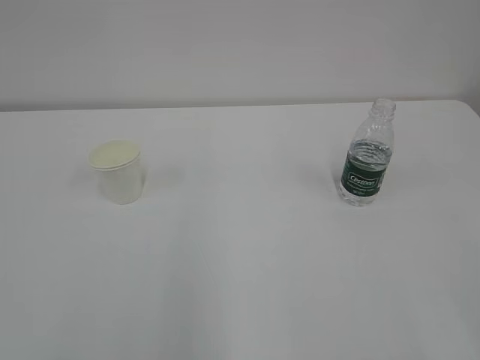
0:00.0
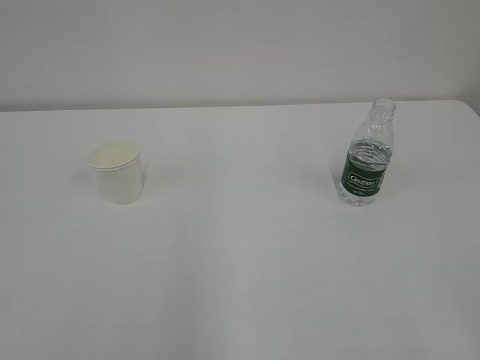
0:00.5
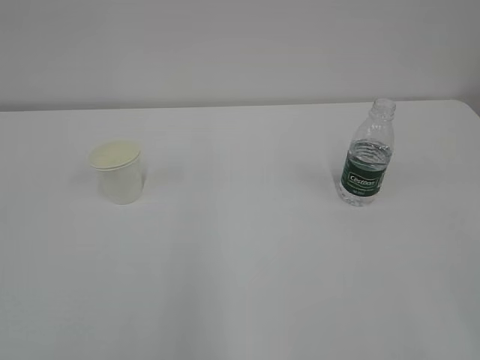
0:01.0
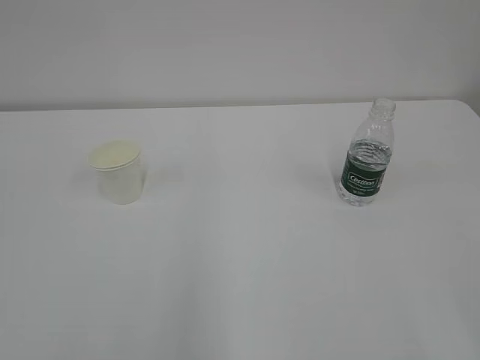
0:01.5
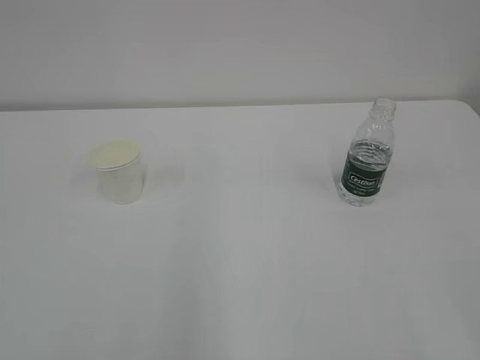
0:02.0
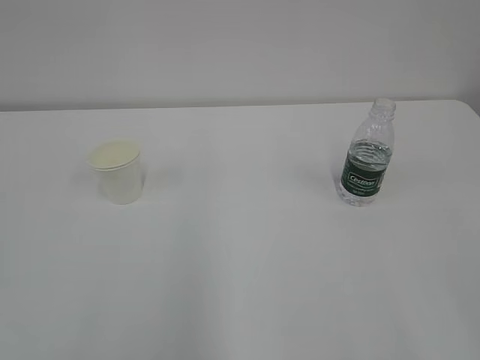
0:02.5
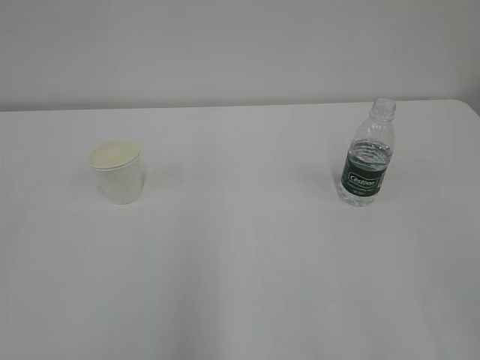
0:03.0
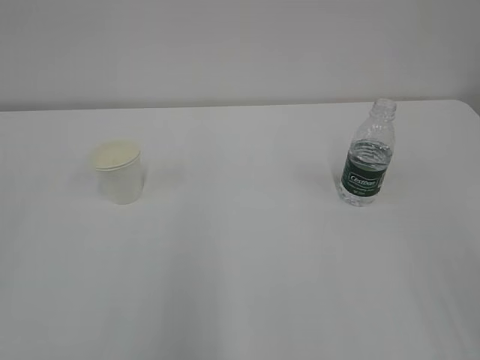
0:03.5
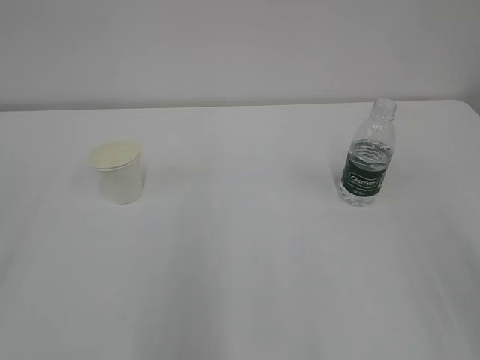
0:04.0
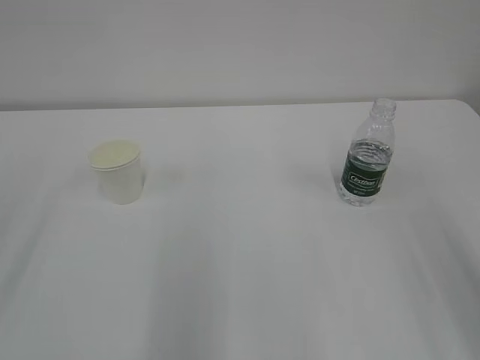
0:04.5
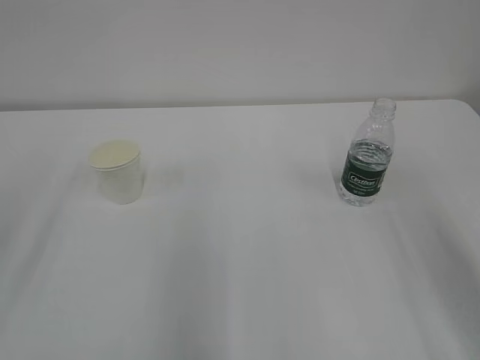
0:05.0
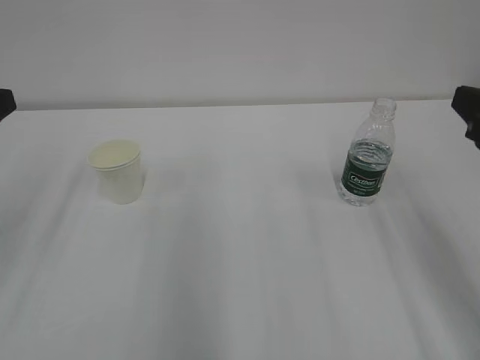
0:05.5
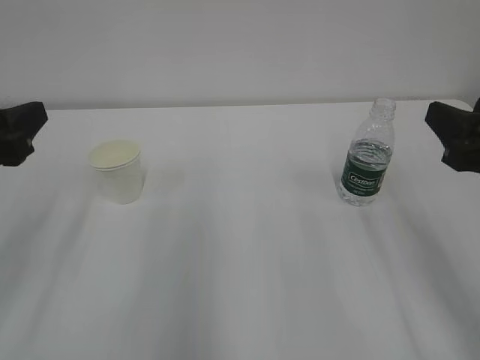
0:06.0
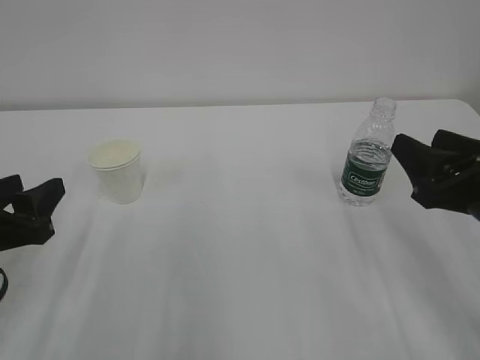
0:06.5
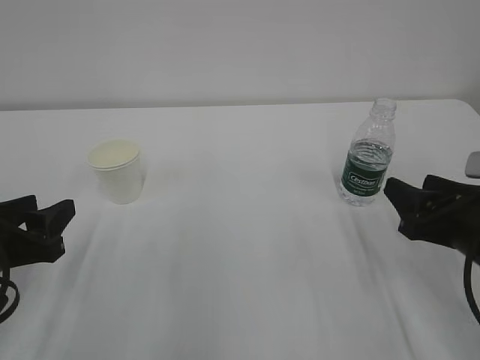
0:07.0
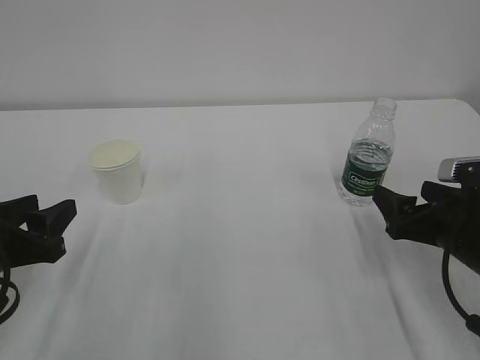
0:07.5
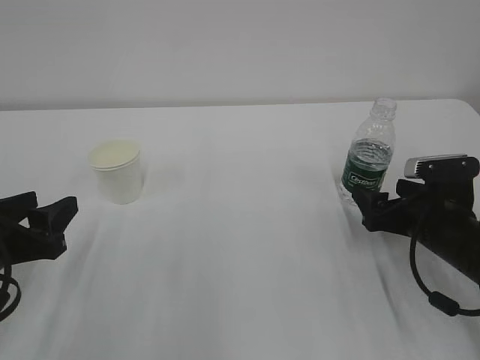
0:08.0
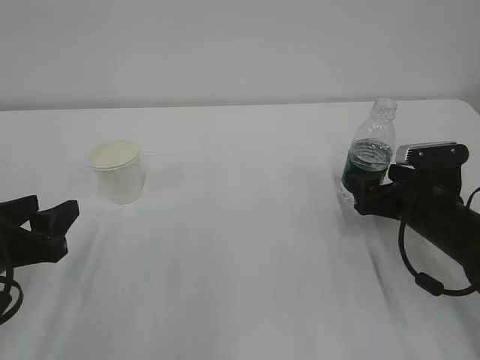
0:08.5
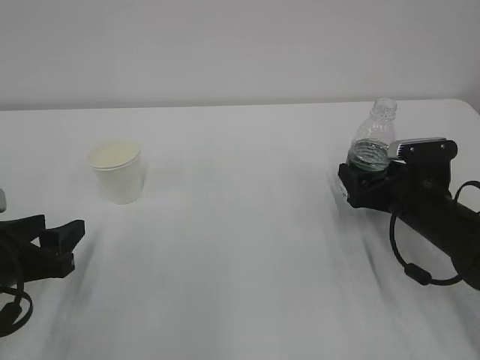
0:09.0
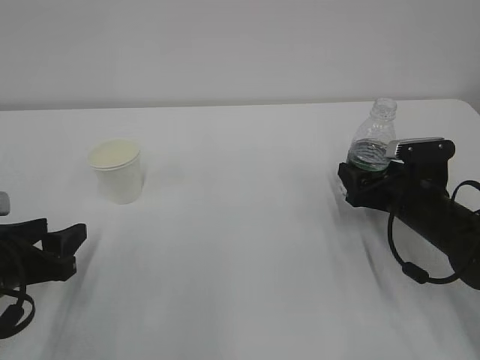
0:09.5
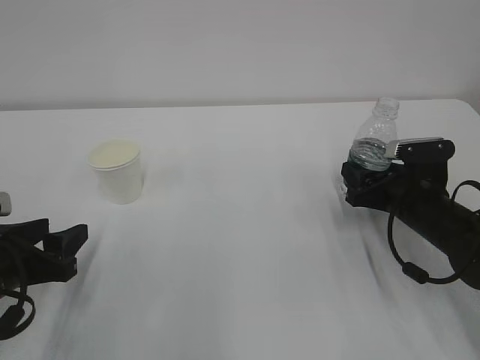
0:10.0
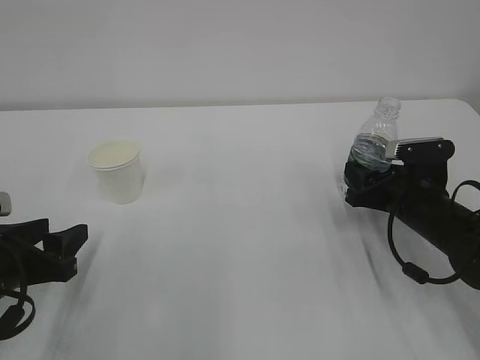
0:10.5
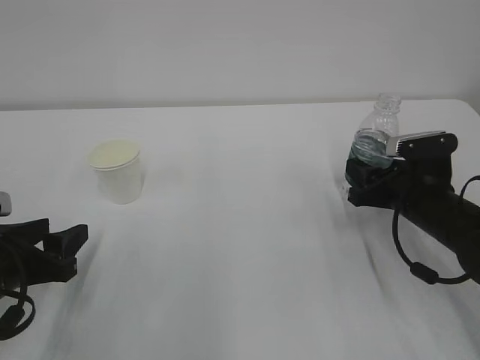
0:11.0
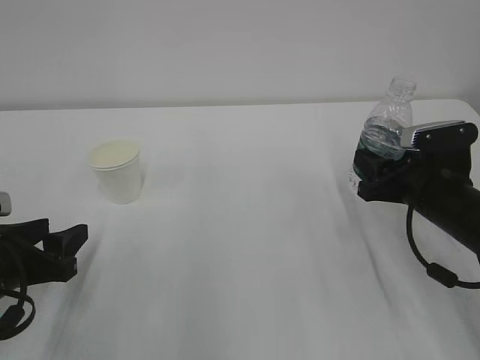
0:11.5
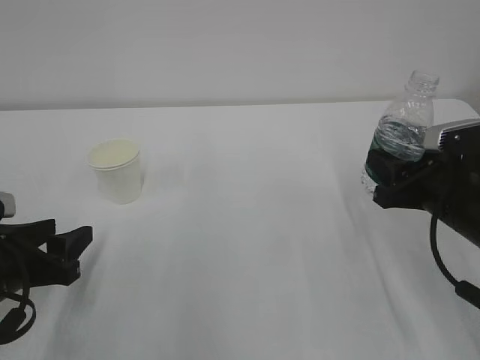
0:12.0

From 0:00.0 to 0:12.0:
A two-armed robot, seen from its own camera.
From 0:04.0 to 0:06.0: Both grippers travel together forward and downward, roughly 15 cm.
From 0:06.0 to 0:08.0: The right gripper is displaced downward and forward by about 20 cm, and opens, while the left gripper is displaced downward by approximately 10 cm.
From 0:08.0 to 0:10.0: The right gripper closes up.
From 0:10.0 to 0:12.0: The right gripper moves upward and backward, about 10 cm, and closes up.

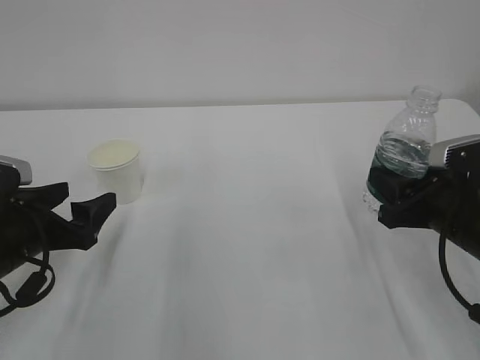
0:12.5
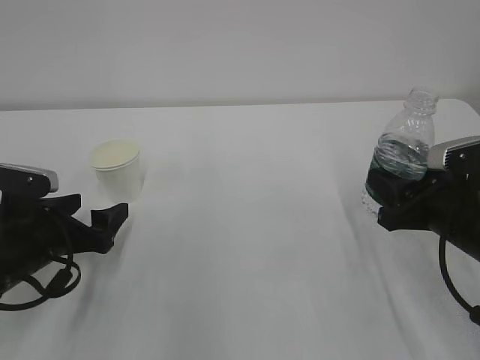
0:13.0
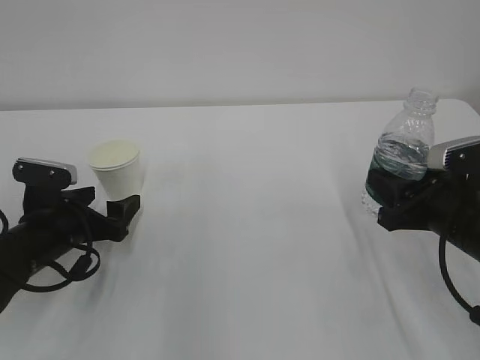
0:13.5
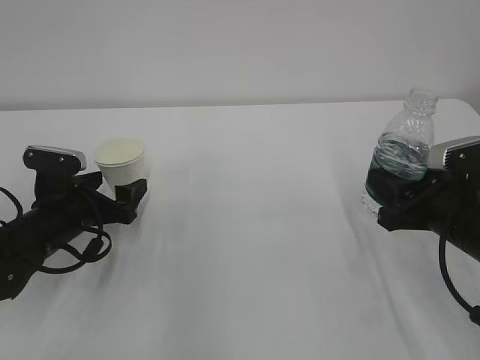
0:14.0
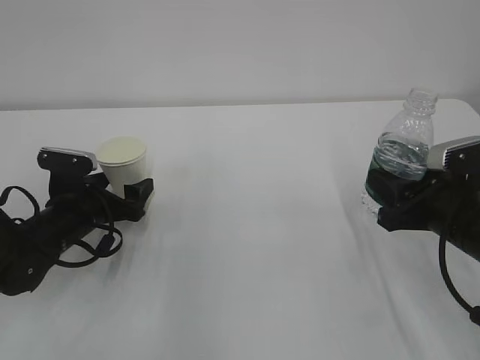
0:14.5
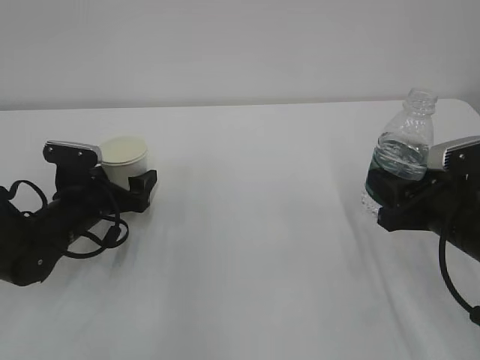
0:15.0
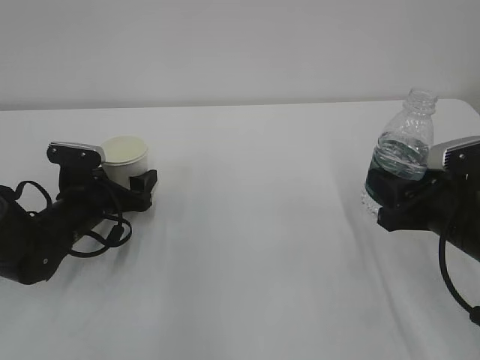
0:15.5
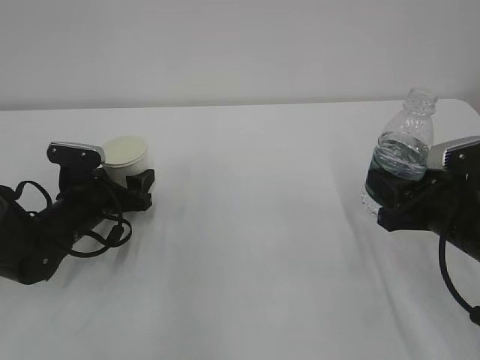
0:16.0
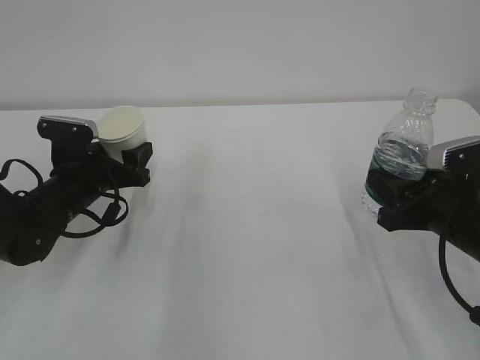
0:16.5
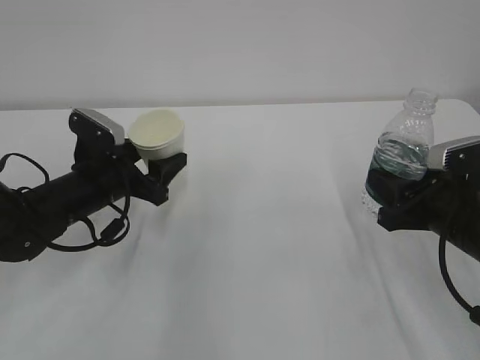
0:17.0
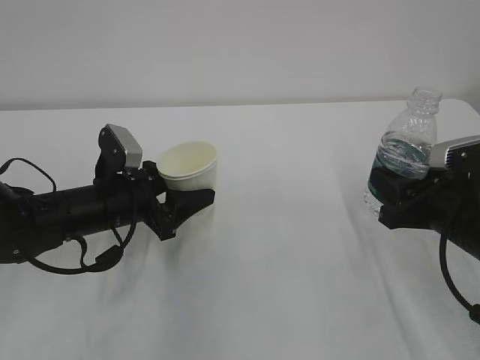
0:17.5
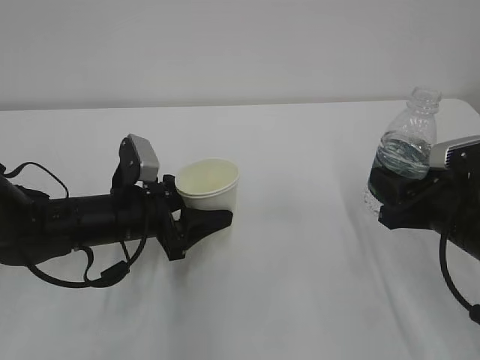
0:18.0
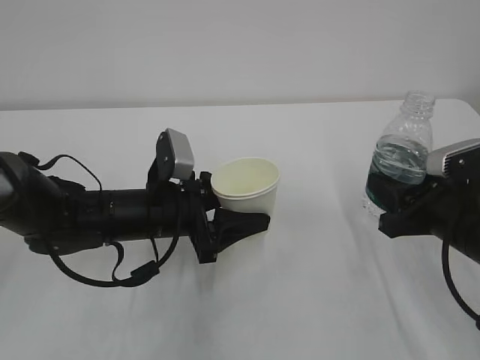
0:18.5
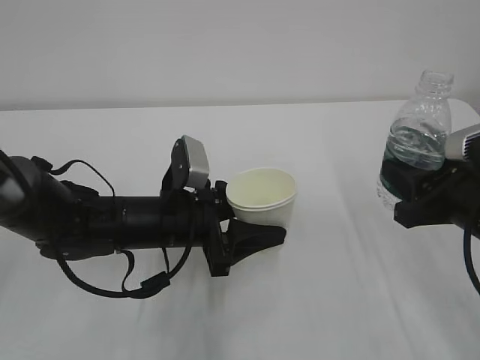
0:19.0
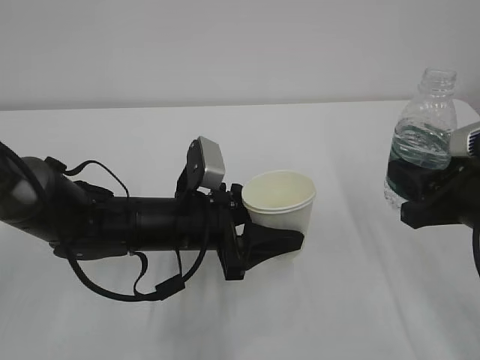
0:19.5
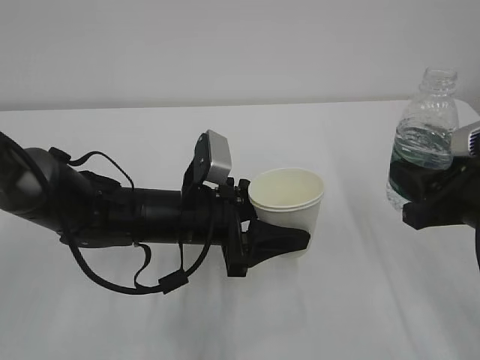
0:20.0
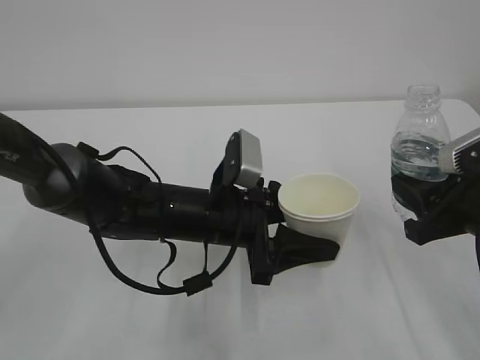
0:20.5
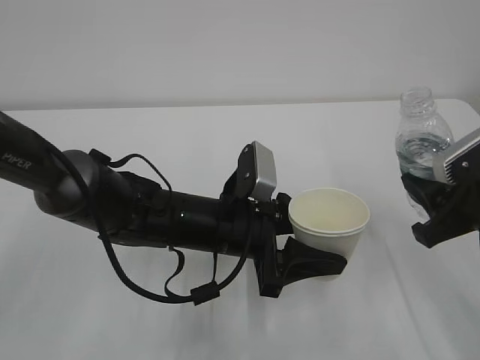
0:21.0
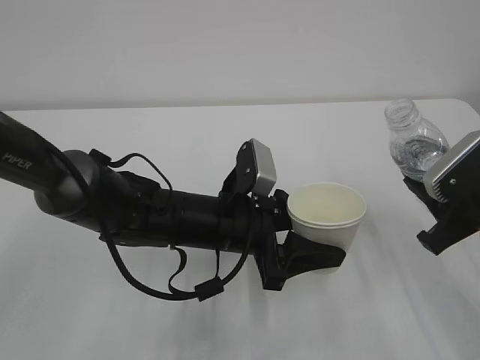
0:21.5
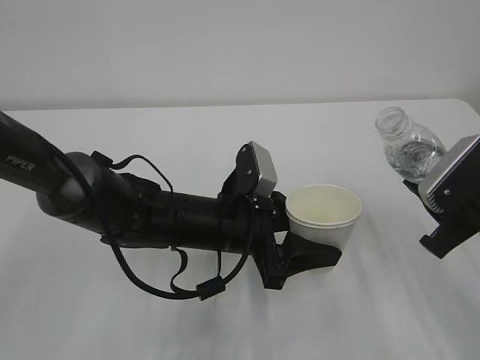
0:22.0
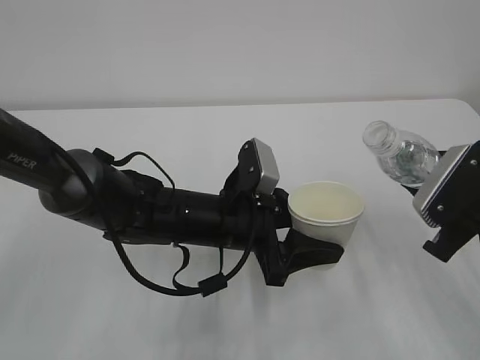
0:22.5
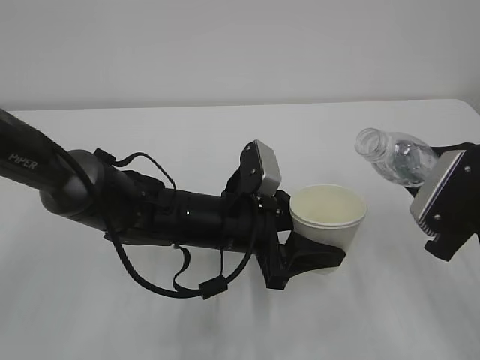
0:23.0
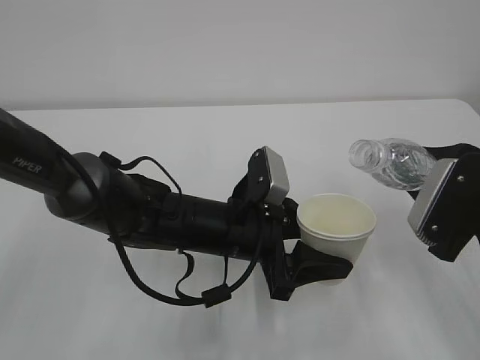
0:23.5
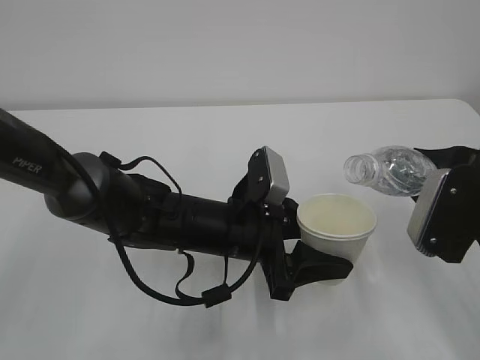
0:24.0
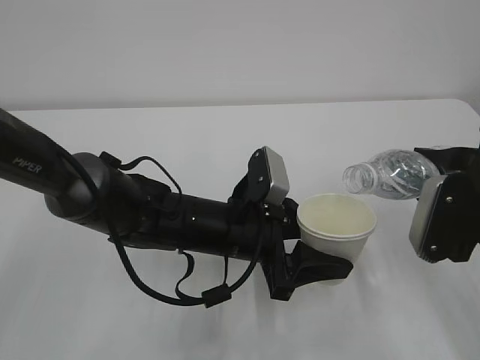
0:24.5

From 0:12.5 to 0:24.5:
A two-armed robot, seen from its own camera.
From 0:12.5 to 0:14.5: The left gripper is displaced forward and downward by approximately 10 cm.
From 0:14.5 to 0:16.5: The left gripper closes.
From 0:16.5 to 0:18.5: The left gripper travels to the right and backward by about 10 cm.
From 0:18.5 to 0:20.5: The left gripper moves to the right, roughly 5 cm.

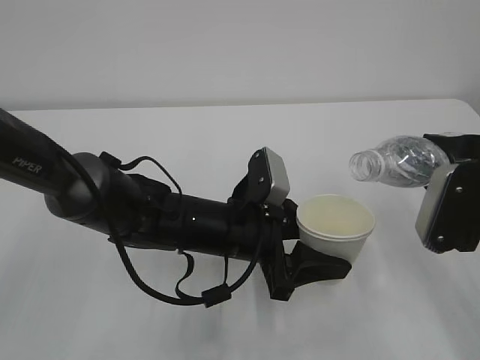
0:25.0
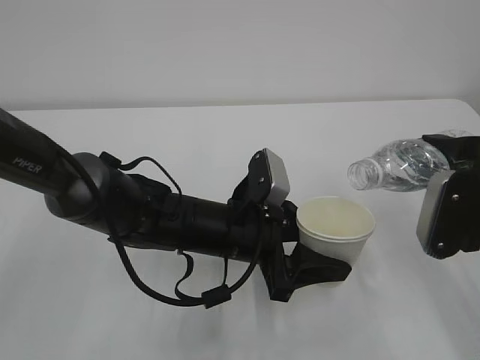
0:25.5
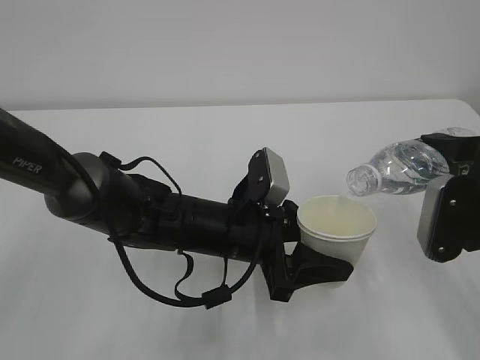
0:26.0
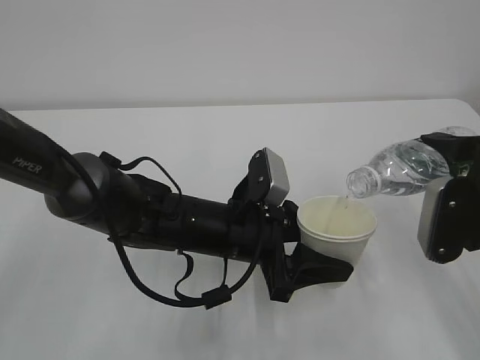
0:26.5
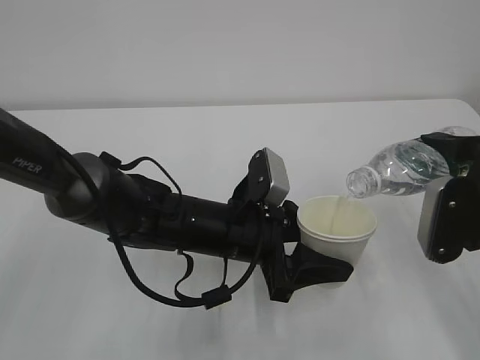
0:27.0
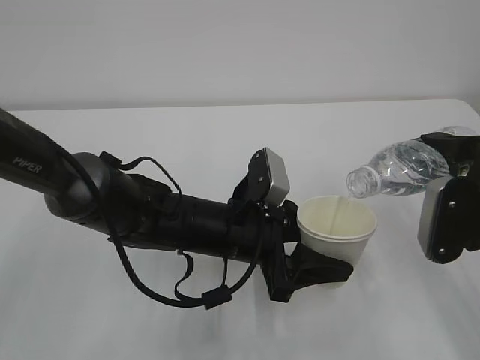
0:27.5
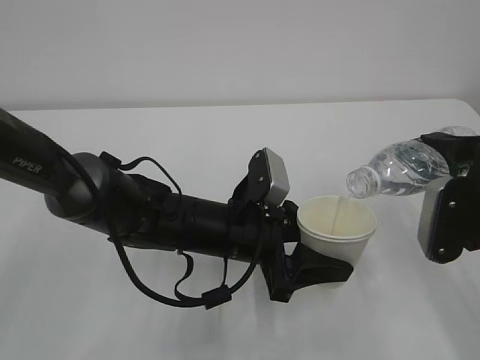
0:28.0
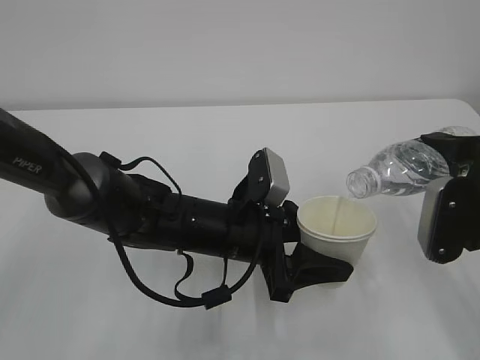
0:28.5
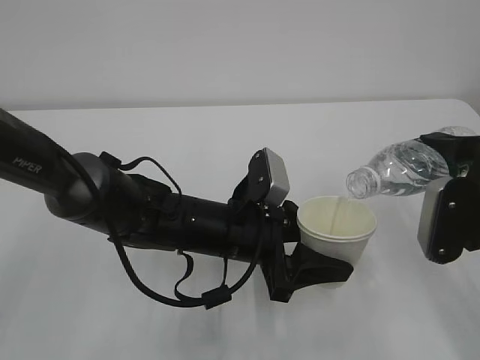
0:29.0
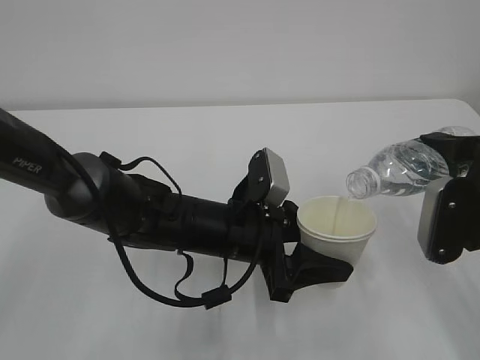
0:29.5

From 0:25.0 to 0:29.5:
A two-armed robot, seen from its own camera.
From 0:25.0 to 0:27.0: There are only small adjustments of the grippers.
From 0:27.0 to 0:29.5: Both grippers stay put.
